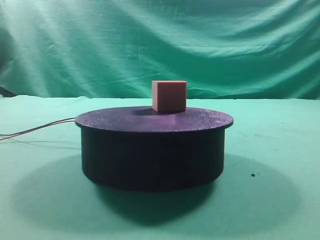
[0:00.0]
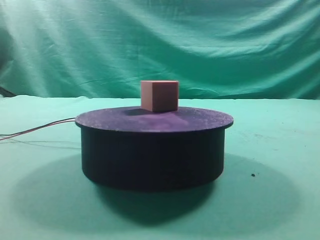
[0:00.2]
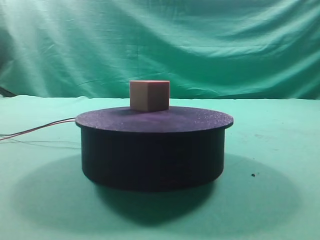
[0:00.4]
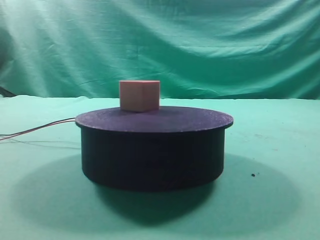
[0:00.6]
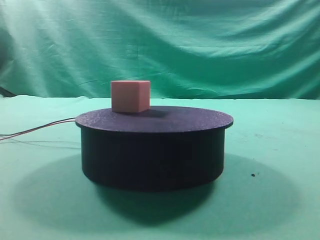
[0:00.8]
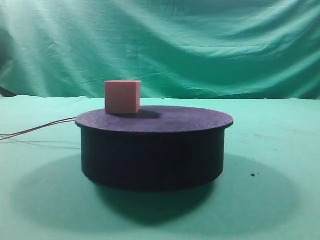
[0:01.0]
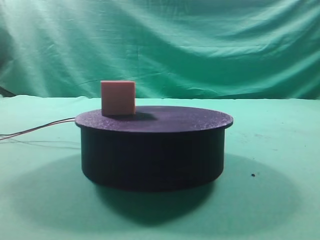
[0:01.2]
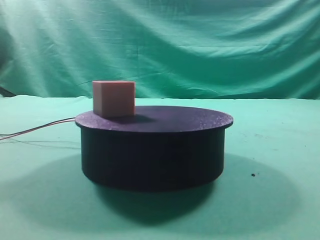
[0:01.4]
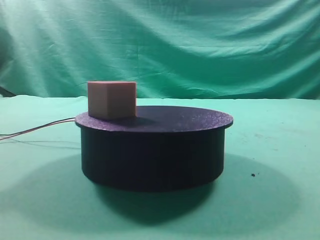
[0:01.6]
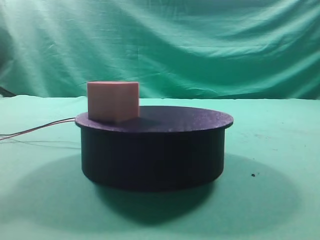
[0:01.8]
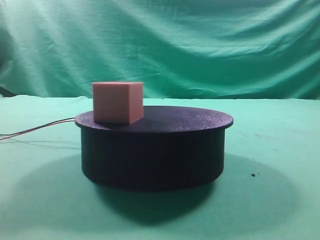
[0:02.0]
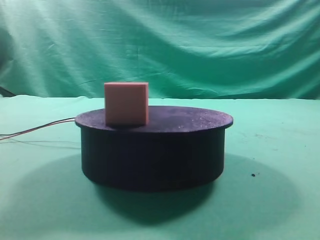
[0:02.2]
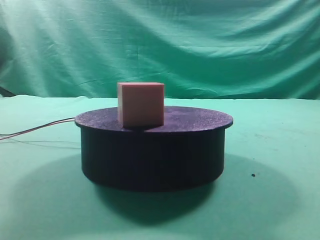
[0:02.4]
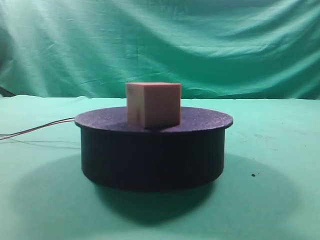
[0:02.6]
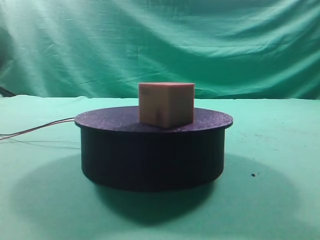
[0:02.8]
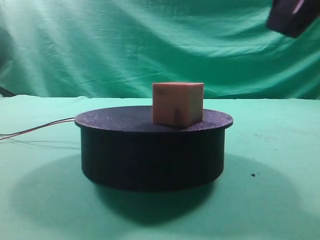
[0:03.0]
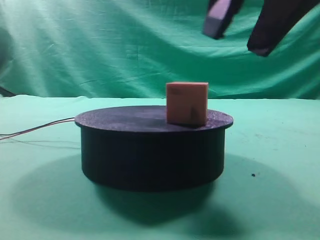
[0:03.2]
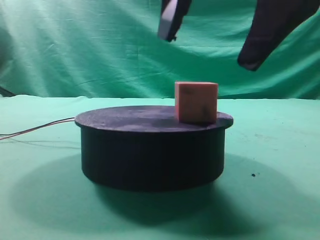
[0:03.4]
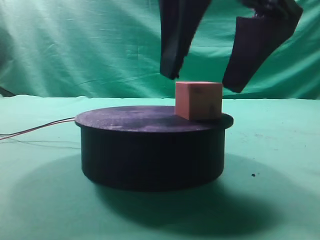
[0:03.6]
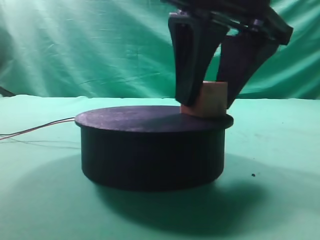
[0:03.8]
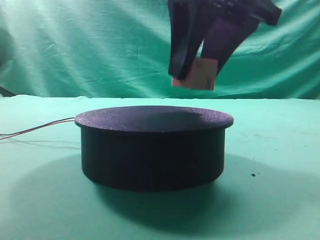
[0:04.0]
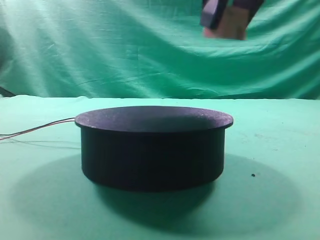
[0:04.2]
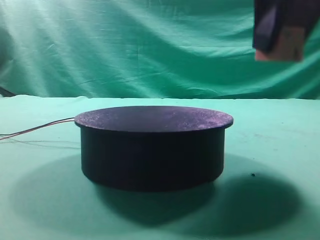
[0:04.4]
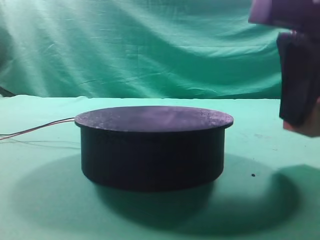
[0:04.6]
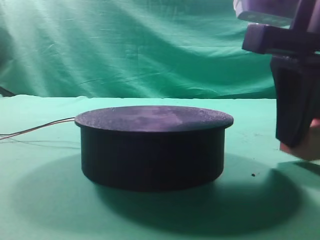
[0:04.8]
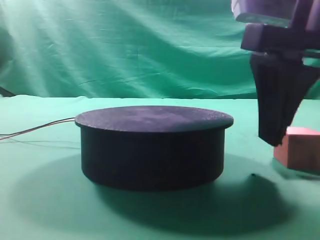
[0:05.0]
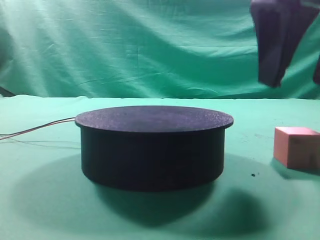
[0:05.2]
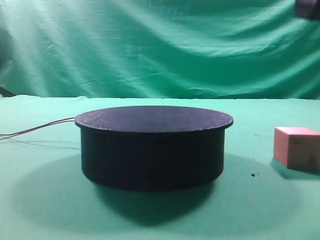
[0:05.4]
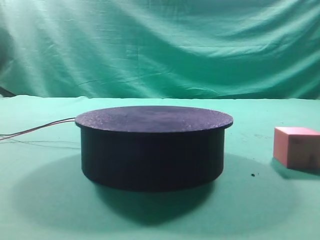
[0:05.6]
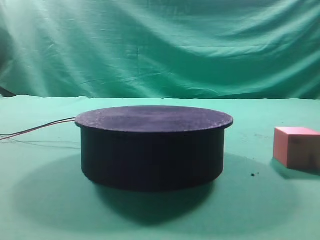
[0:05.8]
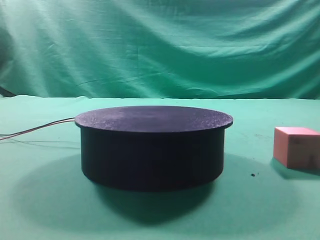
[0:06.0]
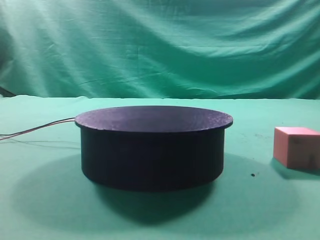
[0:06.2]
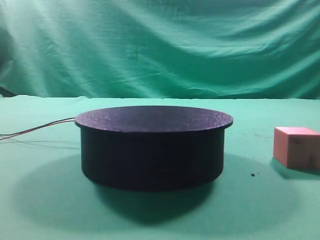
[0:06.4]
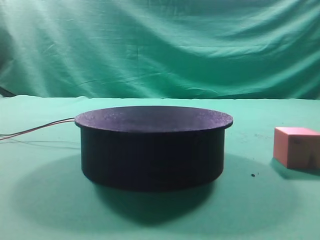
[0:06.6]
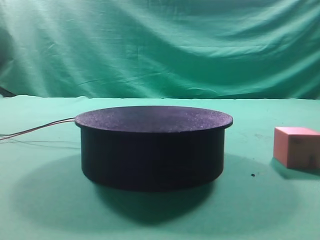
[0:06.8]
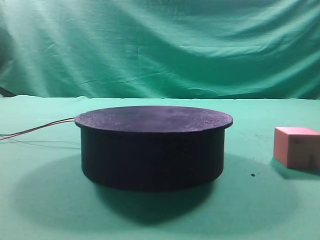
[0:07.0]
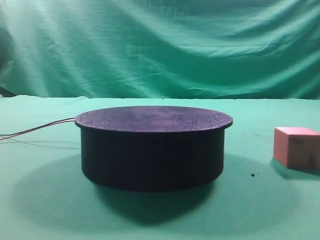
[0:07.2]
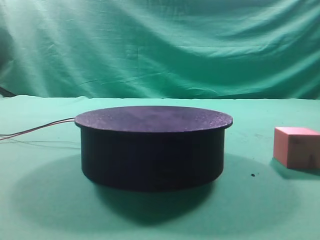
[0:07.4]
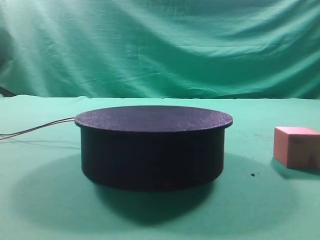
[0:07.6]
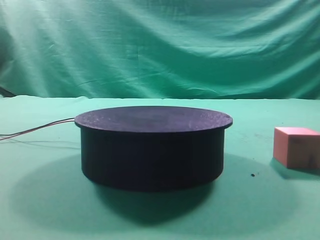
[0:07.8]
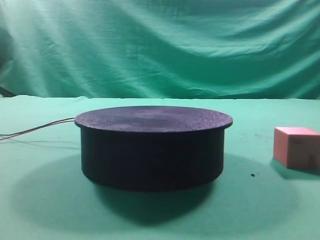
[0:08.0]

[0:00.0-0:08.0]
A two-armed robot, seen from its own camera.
Task of the whole recording: grasp the rotating cube-shaped block on the turntable and place it on the table.
Step, 0:00.0 to 0:04.0: Grasp the rotating cube-shaped block on the turntable.
Step, 0:04.2 to 0:05.0: Place the cube on the desk.
